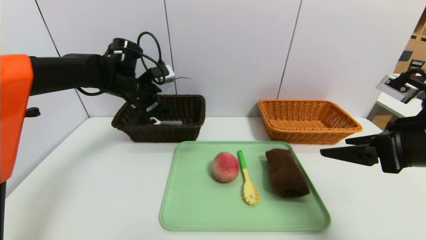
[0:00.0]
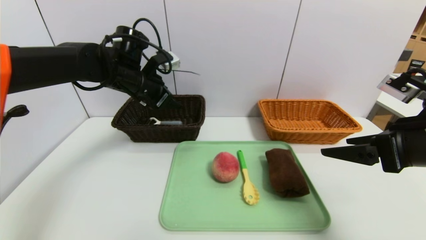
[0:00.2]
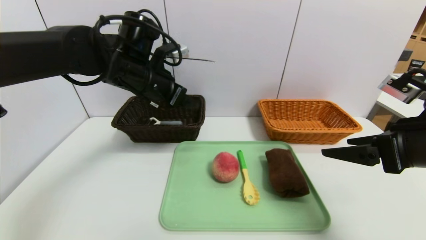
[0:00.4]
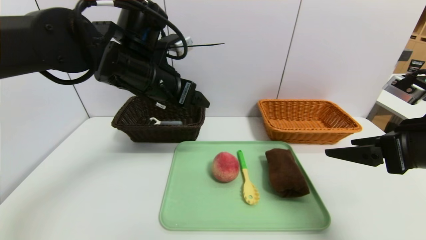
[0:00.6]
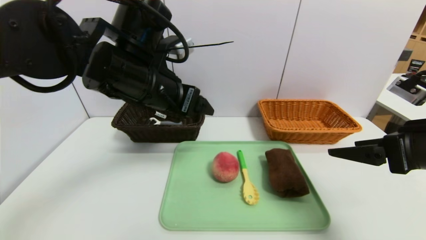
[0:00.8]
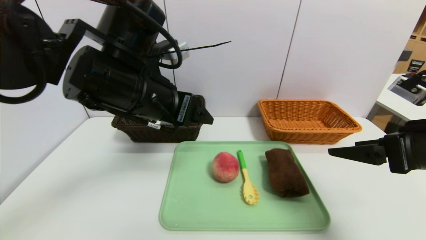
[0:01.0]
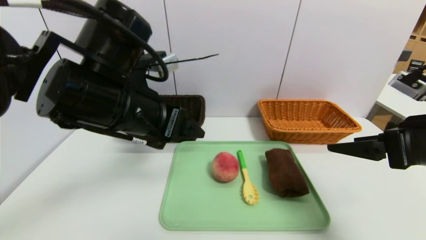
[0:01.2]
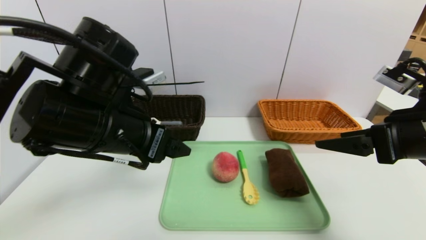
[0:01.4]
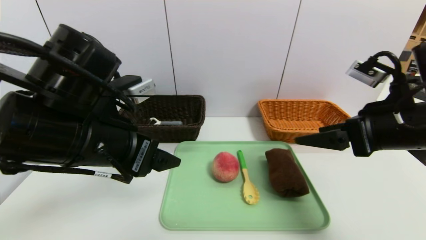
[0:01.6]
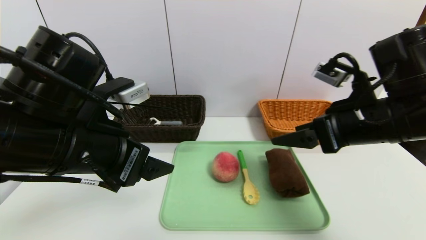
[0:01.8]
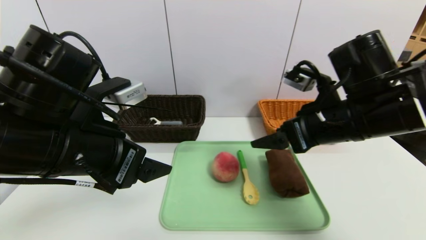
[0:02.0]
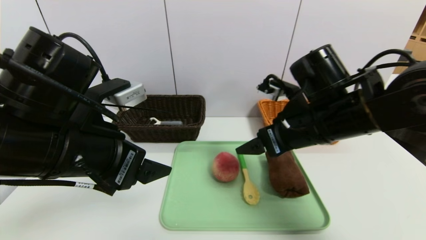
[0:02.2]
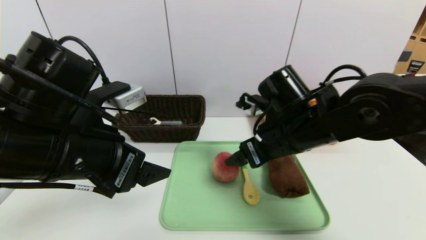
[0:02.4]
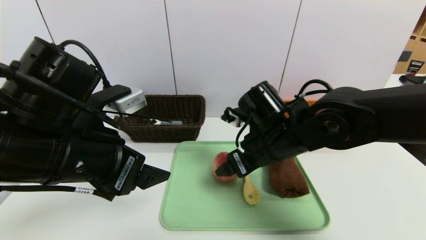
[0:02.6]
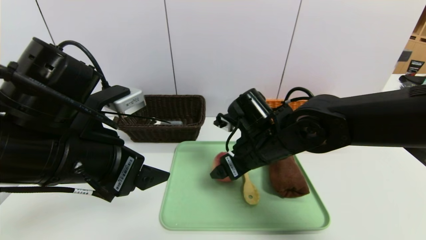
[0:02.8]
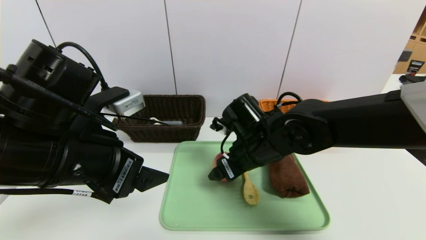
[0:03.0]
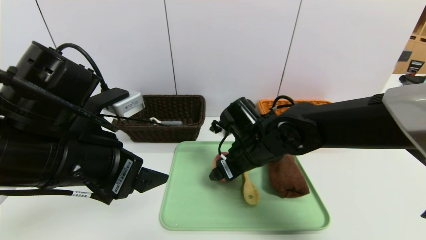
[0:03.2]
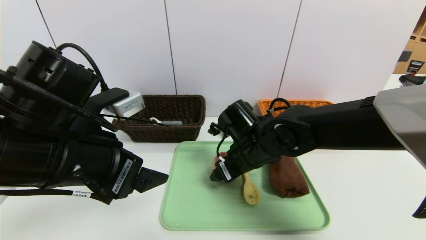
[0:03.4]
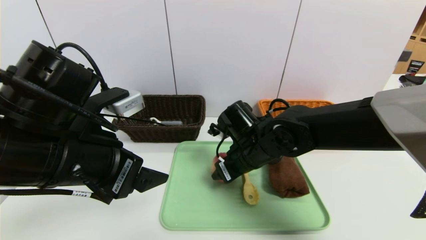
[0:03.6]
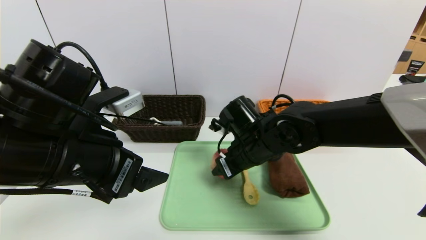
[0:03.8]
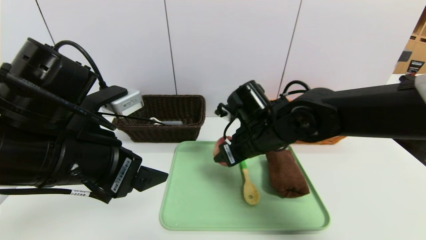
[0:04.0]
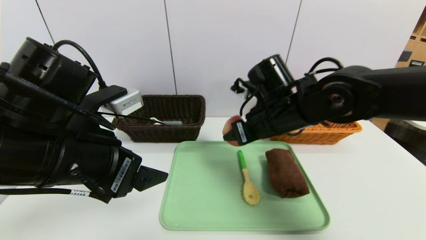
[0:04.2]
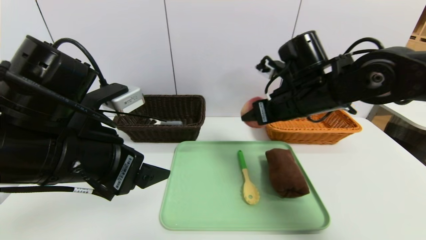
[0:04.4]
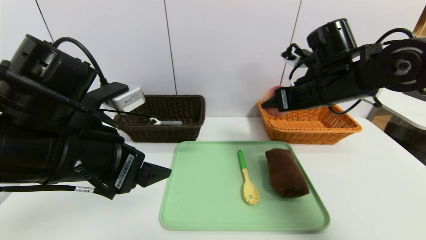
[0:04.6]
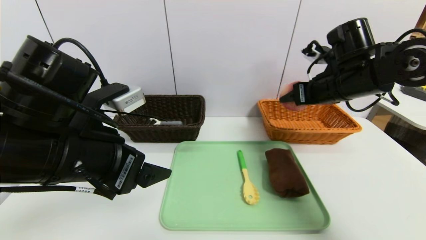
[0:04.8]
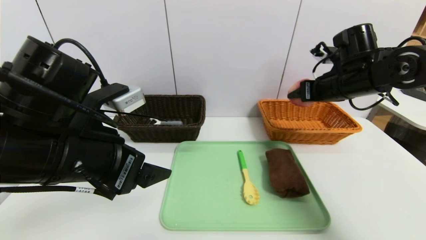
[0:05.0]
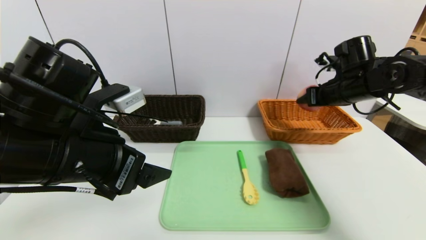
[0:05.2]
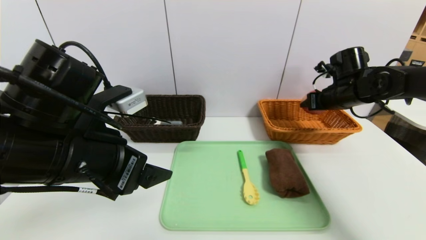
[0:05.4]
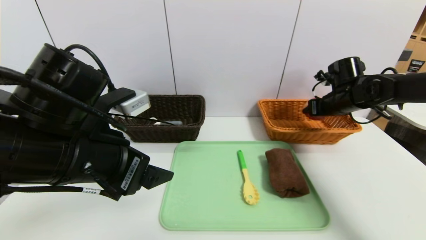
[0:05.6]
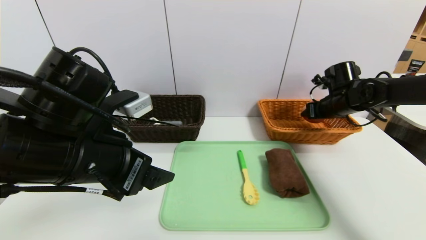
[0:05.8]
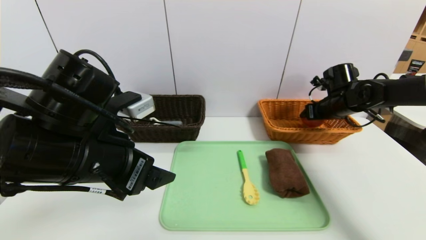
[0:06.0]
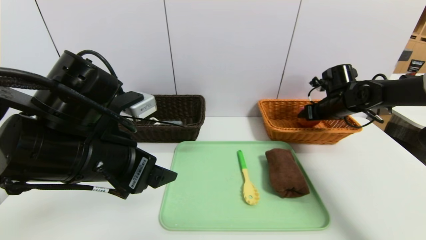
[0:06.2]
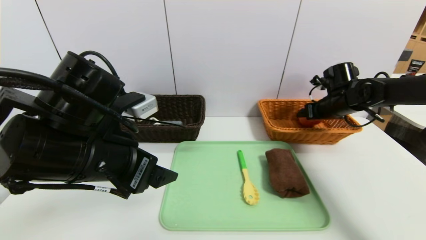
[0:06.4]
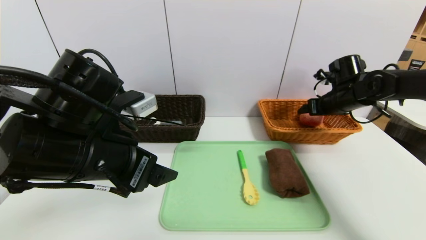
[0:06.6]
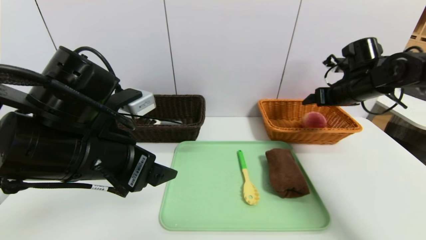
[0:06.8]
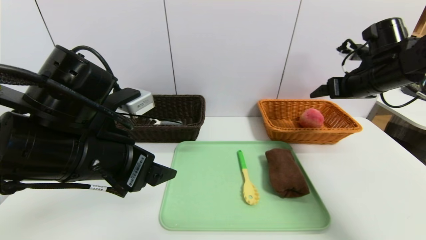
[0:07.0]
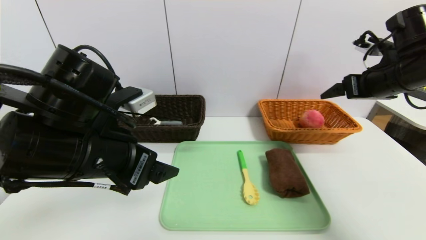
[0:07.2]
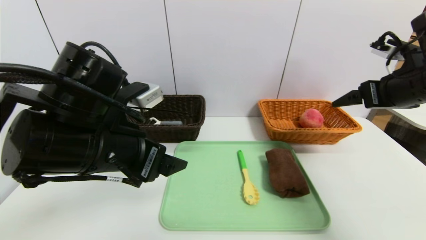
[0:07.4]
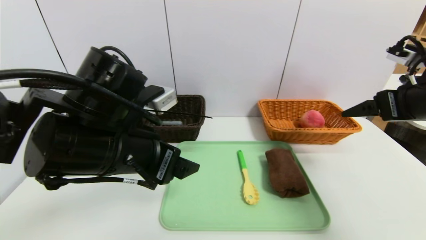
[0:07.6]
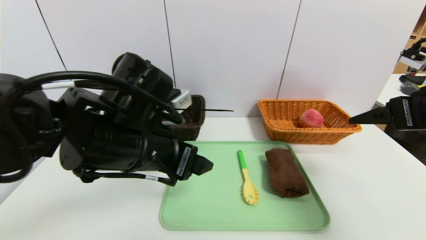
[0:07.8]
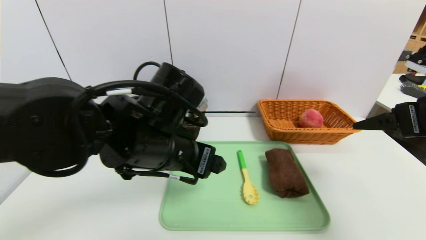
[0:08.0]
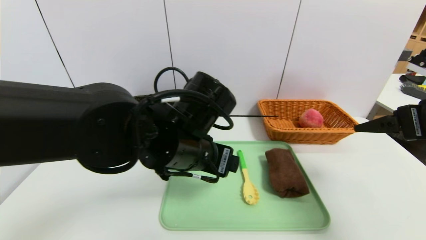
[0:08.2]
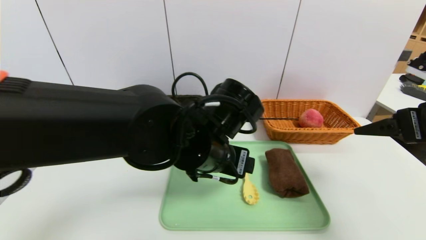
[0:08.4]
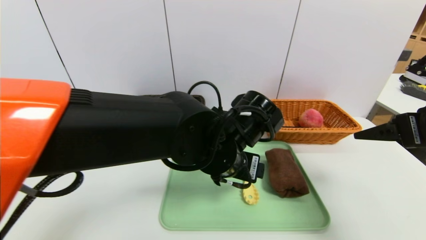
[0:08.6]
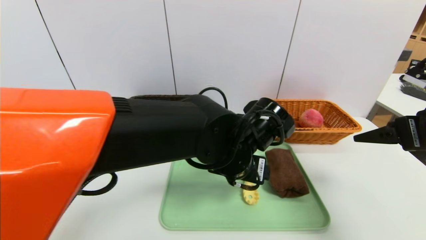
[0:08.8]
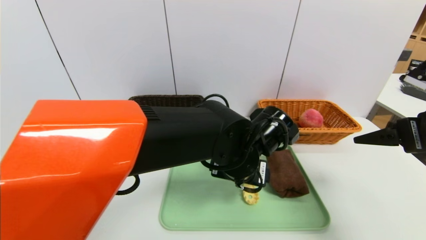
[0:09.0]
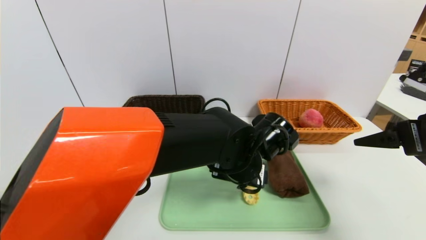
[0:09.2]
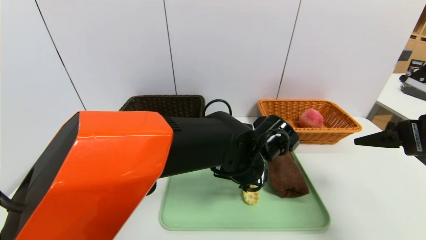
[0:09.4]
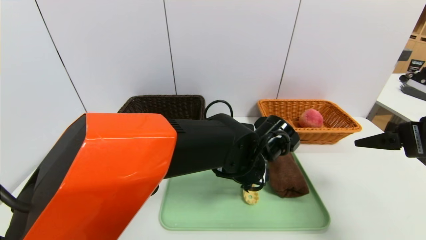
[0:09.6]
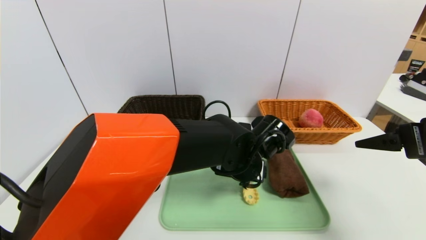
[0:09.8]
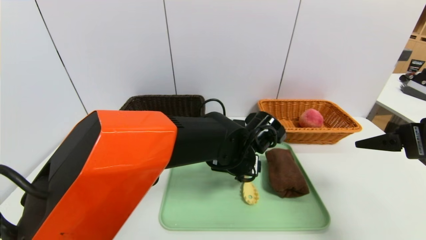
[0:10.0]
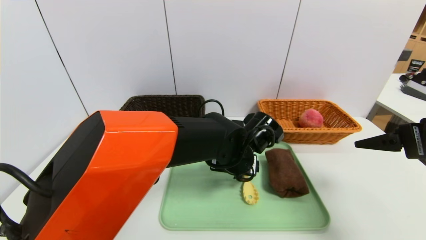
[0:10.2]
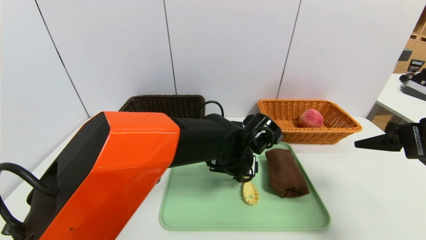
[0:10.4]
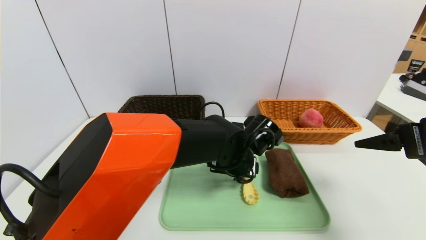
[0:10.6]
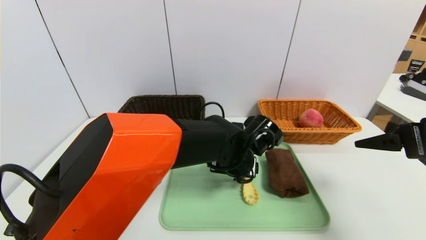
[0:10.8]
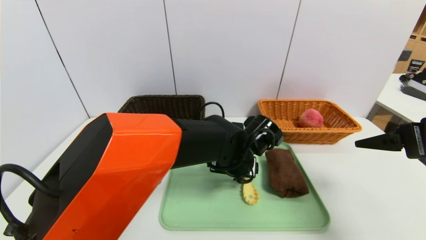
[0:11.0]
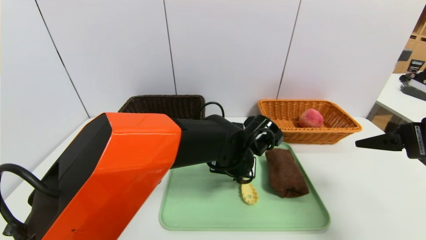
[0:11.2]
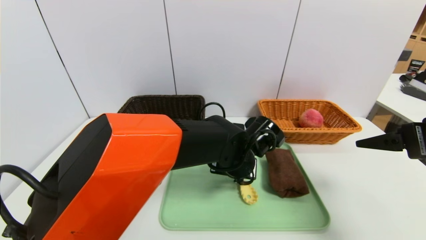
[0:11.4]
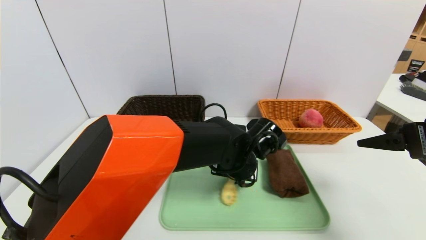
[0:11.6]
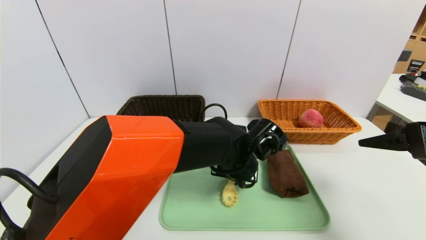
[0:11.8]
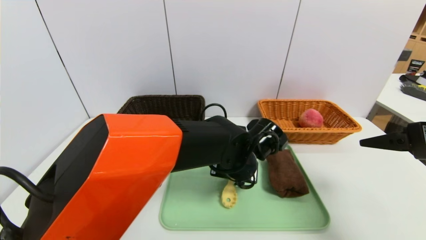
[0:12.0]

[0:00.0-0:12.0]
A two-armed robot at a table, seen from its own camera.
Task of the whole recording: place the food in the right basket with the right gripper, and place the non food items in the left basket with the left gripper.
Step, 0:00.0 to 0:06.4: Grasp the peach and put it in the right basket.
0:00.0 to 0:01.6: The left gripper heads backward, covering about 25 cm.
0:01.6 to 0:03.0: The right gripper shifts about 20 cm to the left, downward and forward.
0:03.0 to 0:04.4: The right gripper heads upward and to the right, covering roughly 10 cm, and closes.
0:04.4 to 0:06.0: The right gripper travels to the right, forward and downward by approximately 25 cm.
0:06.0 to 0:07.6: The right gripper is displaced backward and upward by some 25 cm, and opens up.
0:07.6 to 0:09.0: The left gripper shifts approximately 20 cm to the right and downward; the right gripper shifts by about 5 cm.
0:09.0 to 0:10.4: The left gripper changes place by approximately 5 cm.
0:10.4 to 0:12.0: The left gripper closes up.

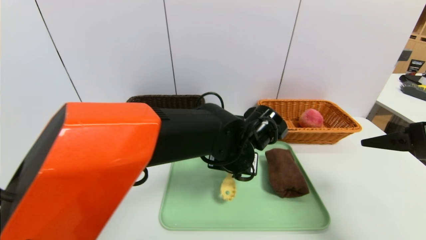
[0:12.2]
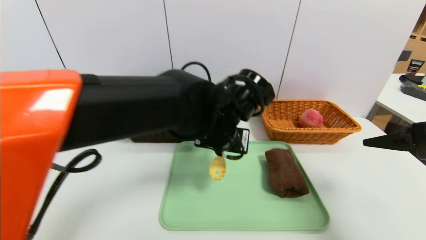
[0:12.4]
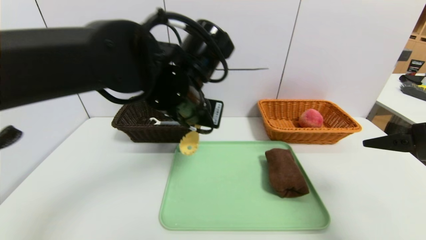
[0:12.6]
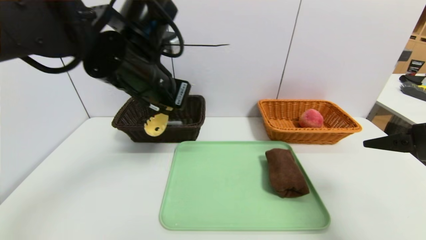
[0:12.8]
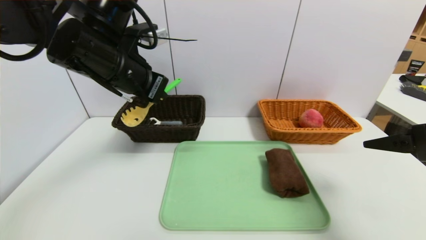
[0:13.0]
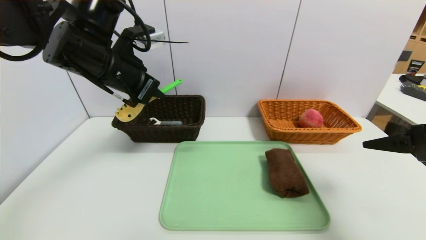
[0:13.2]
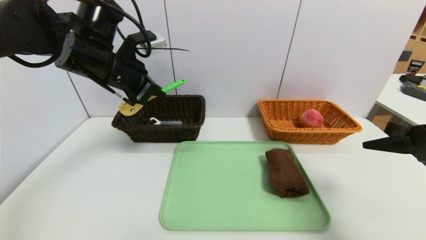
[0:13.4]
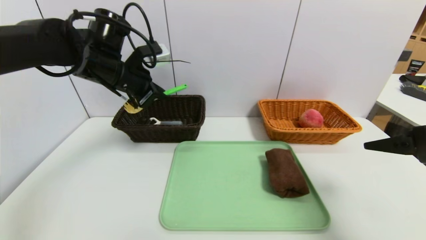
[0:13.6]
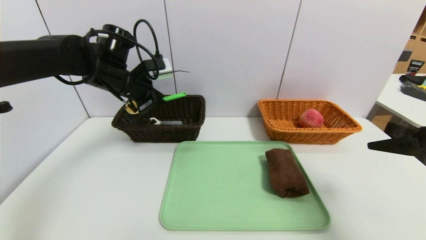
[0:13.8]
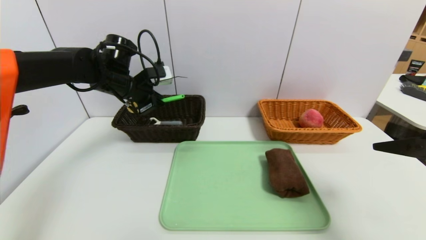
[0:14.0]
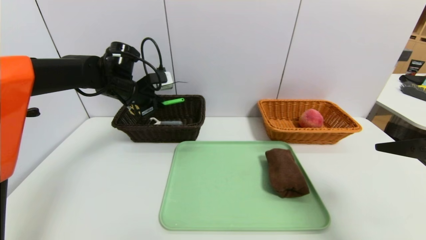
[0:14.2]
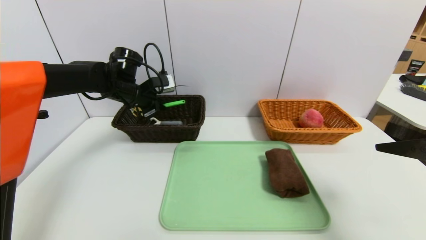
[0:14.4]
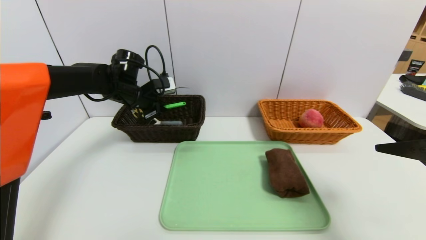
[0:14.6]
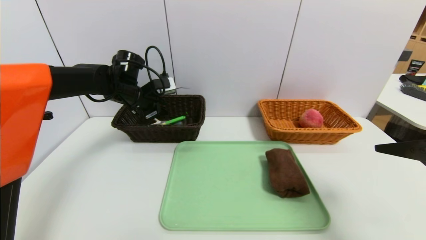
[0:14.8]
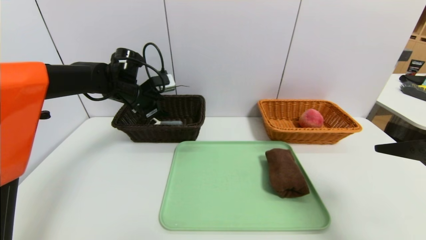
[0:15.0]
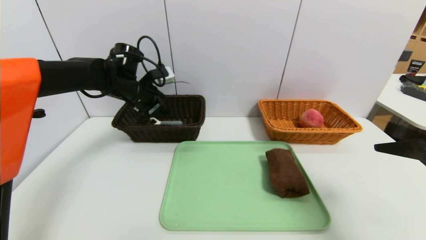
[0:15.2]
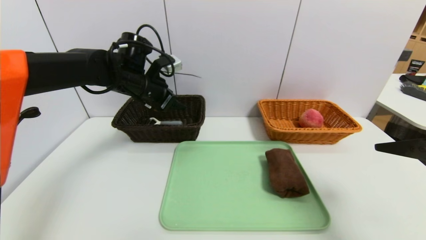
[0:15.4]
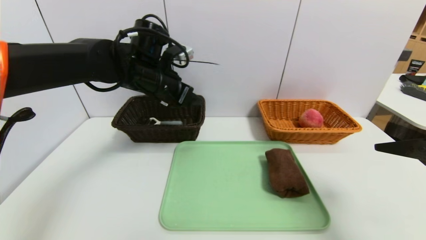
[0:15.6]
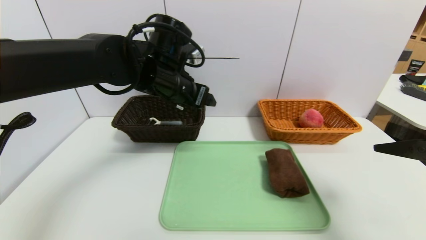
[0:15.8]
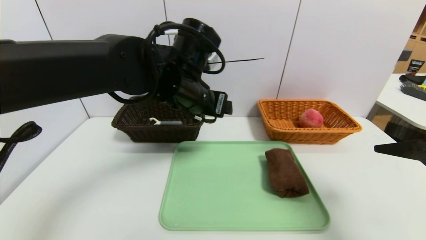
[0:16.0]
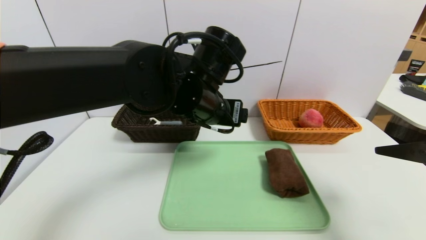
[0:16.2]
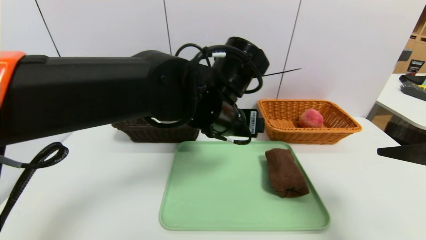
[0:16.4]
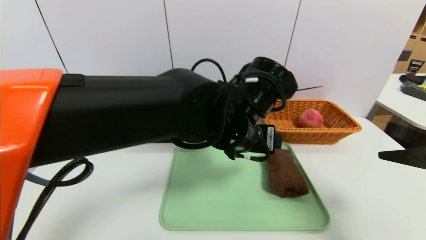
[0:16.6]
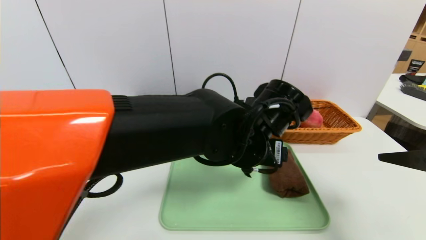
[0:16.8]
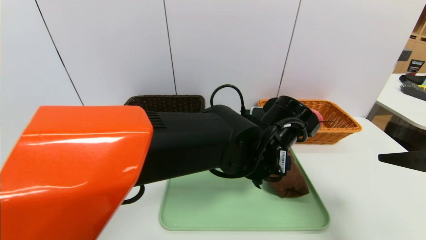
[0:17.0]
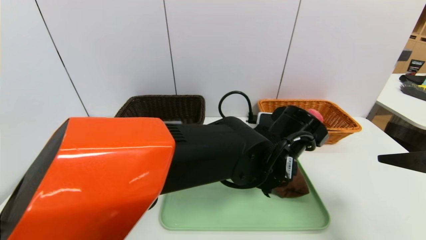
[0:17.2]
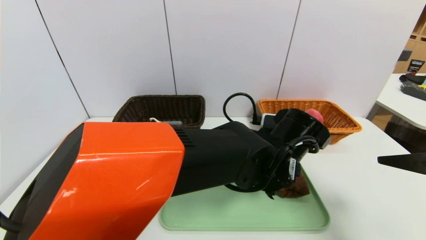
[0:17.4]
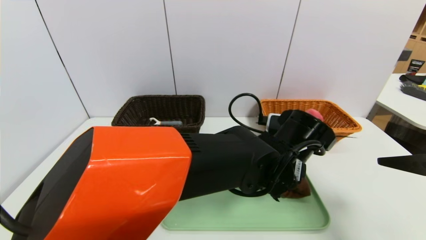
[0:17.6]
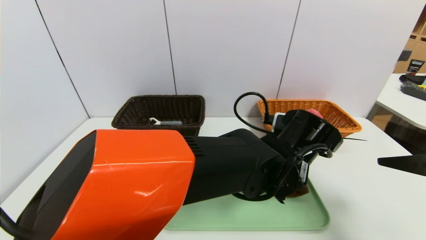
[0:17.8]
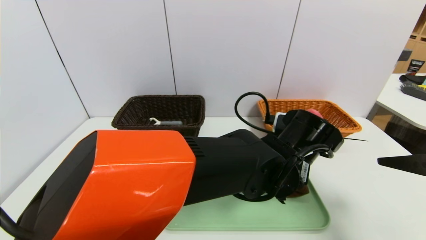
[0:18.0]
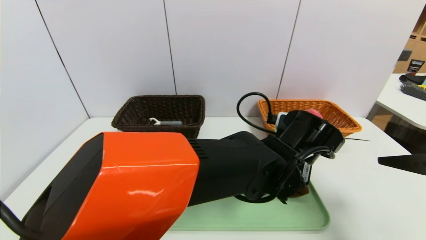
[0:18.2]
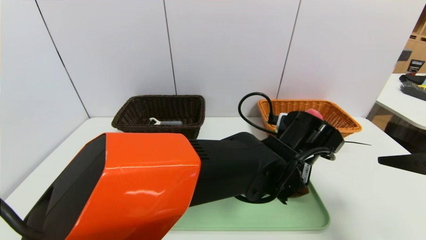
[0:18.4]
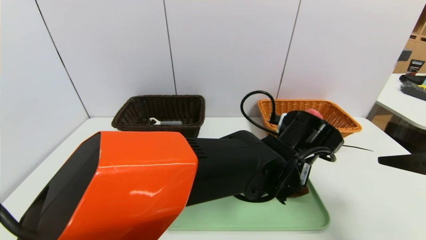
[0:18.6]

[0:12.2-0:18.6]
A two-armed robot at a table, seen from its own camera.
Task of the whole recording: place the food in the right basket with the right gripper, and place the non food items in the left basket with the left gripper.
0:12.2 to 0:13.8: The left gripper shifts roughly 30 cm to the left, forward and upward.
0:13.8 to 0:15.4: The left gripper opens up.
0:15.4 to 0:17.0: The left gripper shifts about 30 cm to the right and backward.
0:17.0 to 0:18.6: The left gripper closes its fingers.
